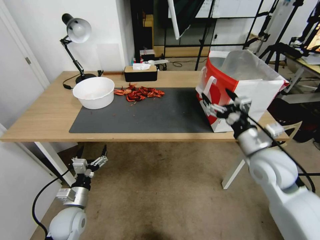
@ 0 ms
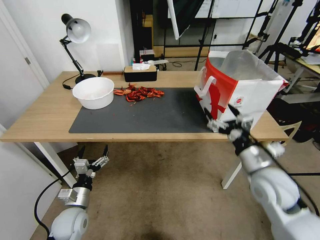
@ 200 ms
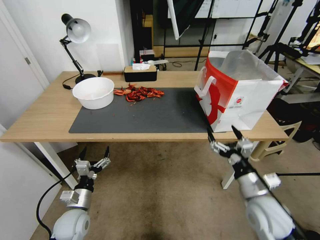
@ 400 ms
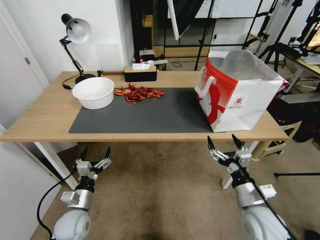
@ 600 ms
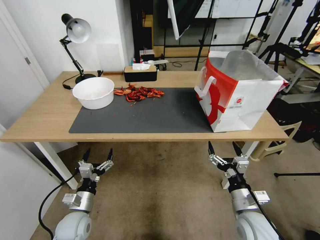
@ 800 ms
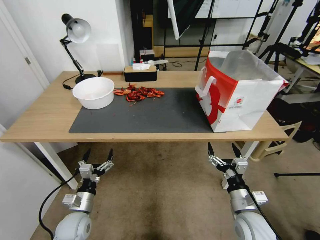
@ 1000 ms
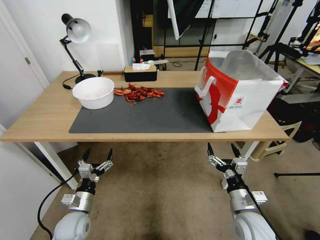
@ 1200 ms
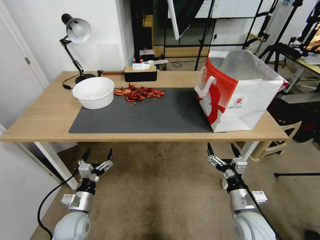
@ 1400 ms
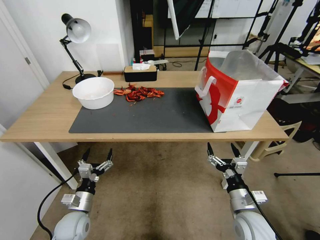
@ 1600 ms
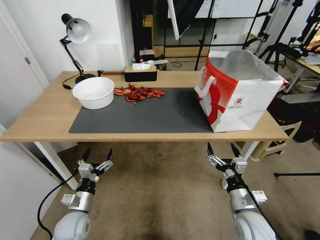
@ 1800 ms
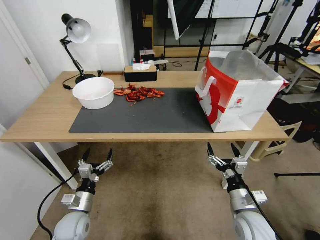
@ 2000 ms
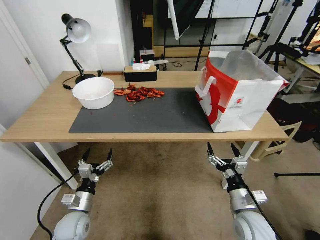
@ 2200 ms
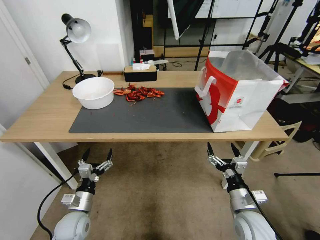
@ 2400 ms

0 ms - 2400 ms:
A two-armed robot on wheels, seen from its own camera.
Task of the whole recording: Close the takeout container lid, then place the container into the takeout bag.
0 ms - 1200 ms: The right gripper is displaced downward and backward by about 20 cm.
1200 ms - 2400 ms: Both grippers stay put.
